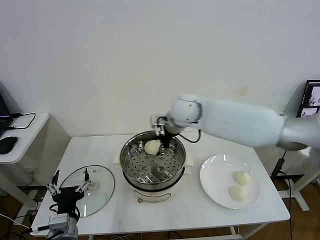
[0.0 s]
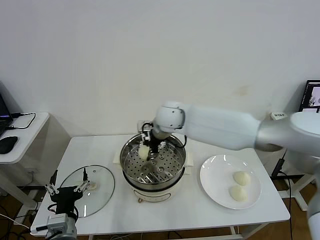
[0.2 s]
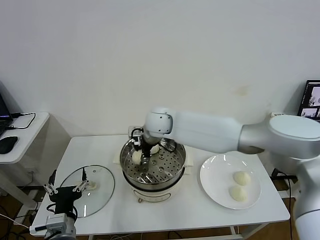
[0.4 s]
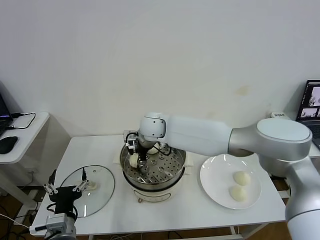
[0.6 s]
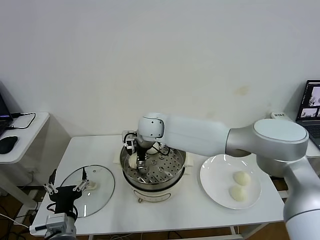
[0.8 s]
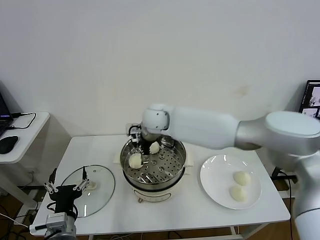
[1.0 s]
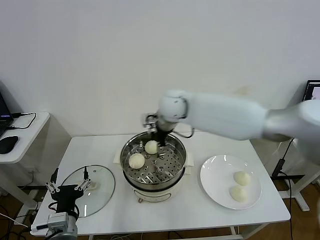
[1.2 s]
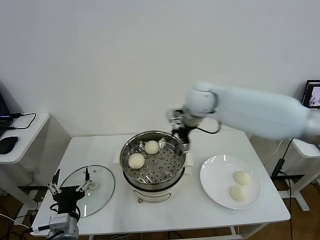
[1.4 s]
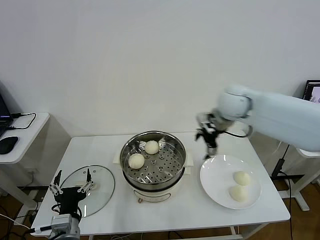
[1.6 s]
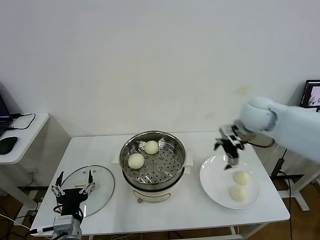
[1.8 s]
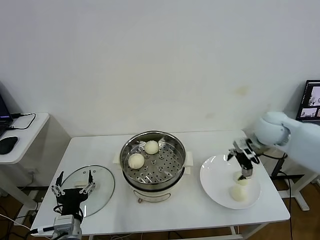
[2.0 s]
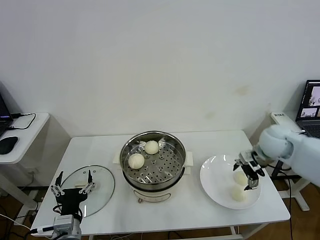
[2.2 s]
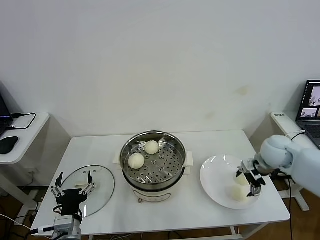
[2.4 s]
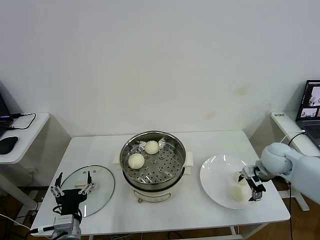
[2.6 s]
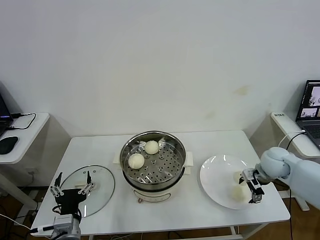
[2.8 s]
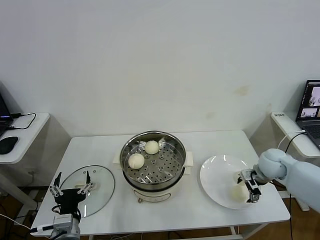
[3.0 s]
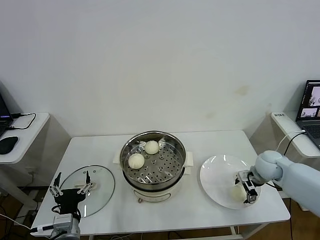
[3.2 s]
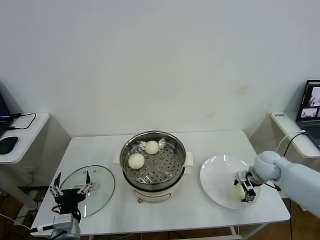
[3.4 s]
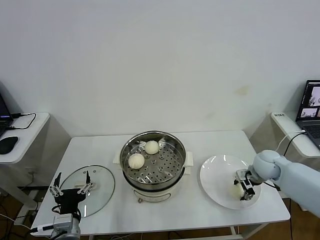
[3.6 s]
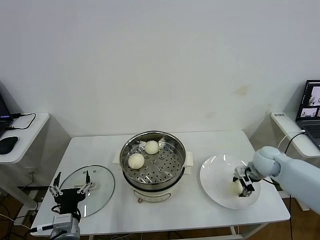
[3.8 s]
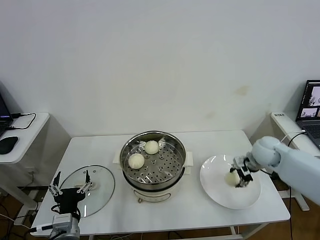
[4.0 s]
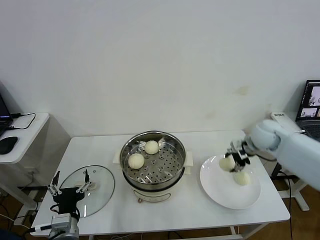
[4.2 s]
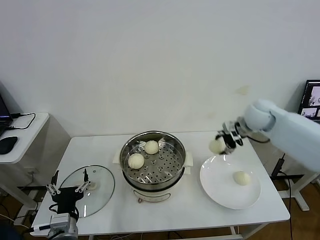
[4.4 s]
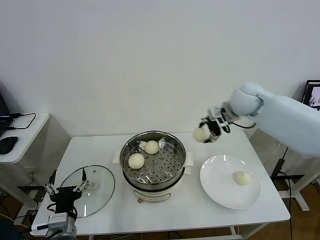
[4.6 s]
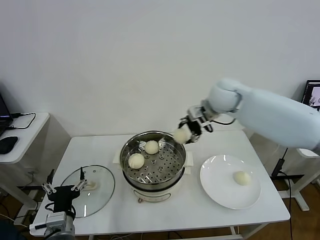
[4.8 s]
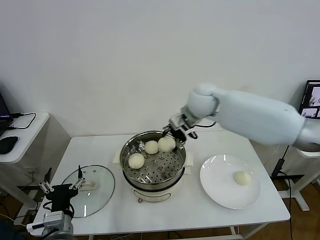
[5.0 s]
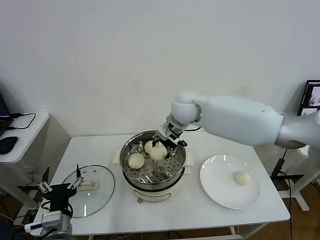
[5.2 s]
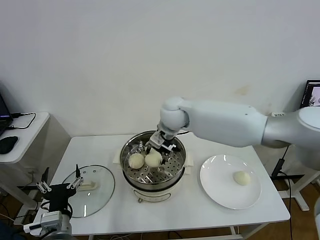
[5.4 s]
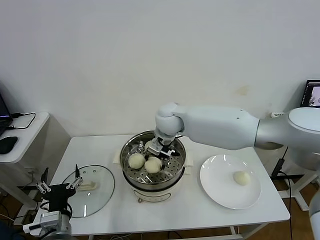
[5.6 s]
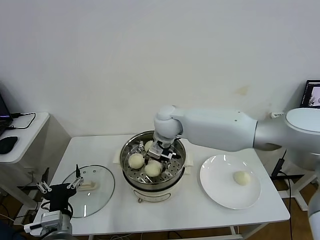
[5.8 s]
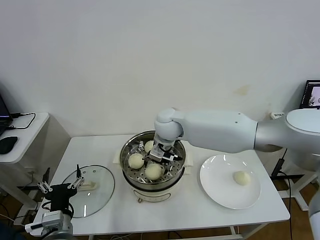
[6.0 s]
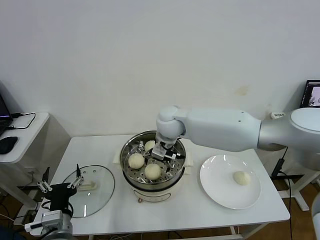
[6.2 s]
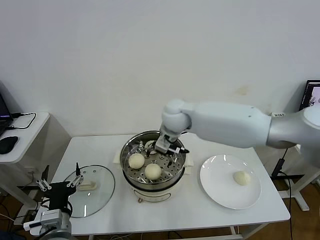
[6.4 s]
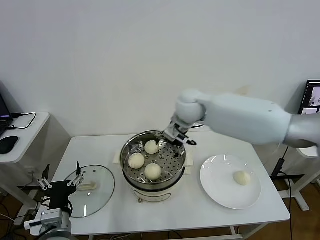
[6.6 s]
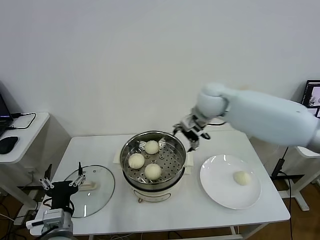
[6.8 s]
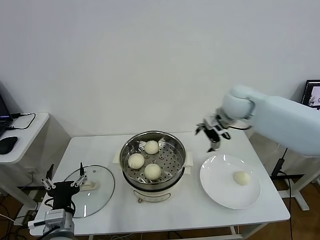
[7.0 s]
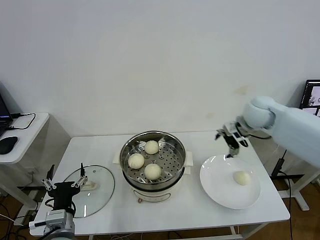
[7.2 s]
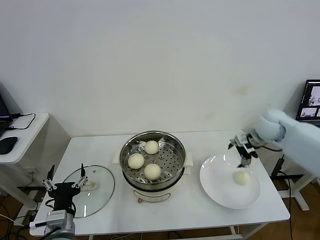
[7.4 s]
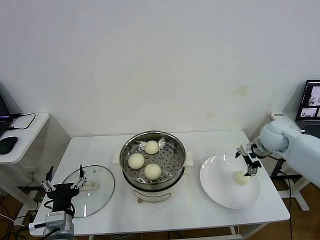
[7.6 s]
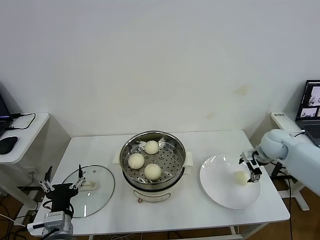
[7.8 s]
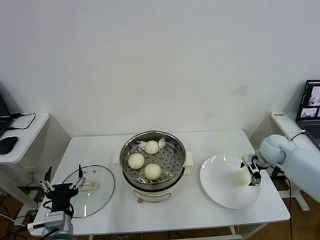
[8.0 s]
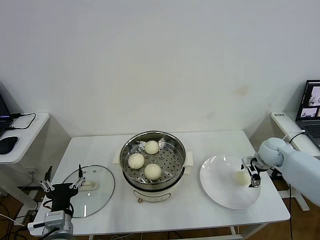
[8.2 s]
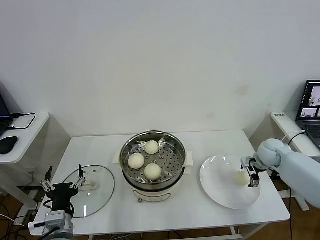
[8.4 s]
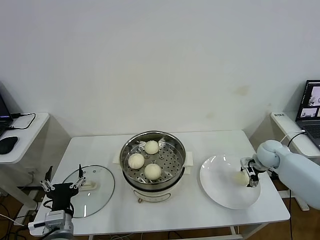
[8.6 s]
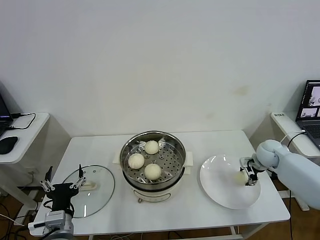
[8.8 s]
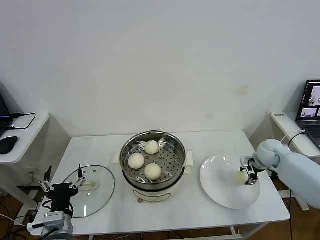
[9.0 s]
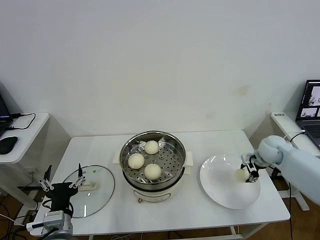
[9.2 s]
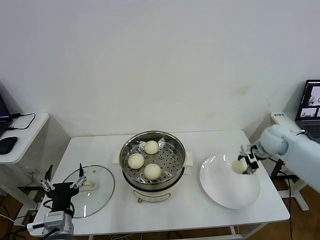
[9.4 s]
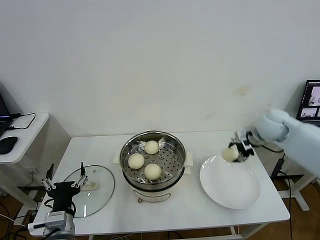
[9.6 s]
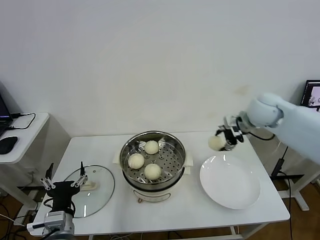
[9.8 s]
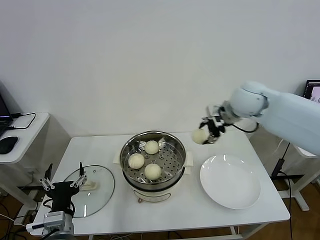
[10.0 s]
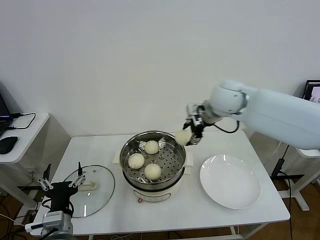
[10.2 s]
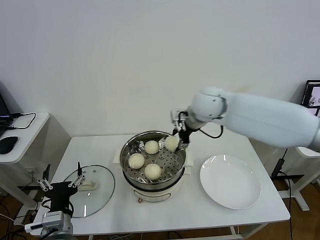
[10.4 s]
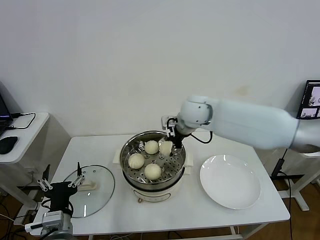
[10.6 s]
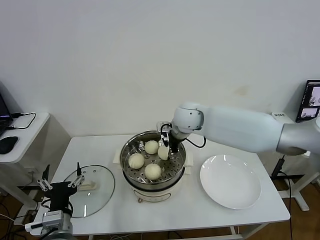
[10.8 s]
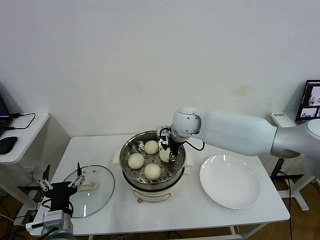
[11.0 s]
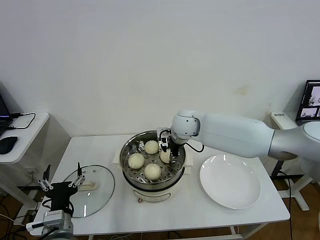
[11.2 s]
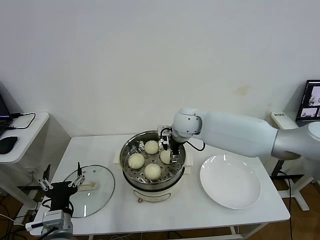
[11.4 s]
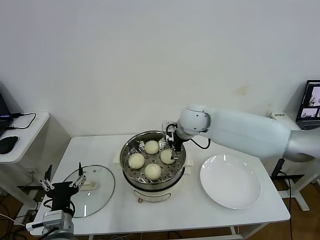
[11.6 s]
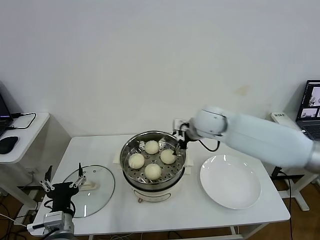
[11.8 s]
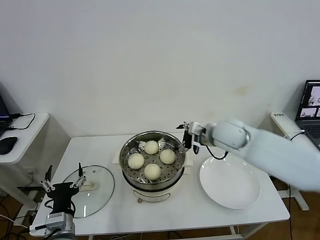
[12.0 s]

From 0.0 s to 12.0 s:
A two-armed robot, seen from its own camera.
Step, from 1.0 s to 3.4 s: Grasp the baozi in the plate with right gripper.
Step, from 3.6 s to 6.0 s: Place the baozi on the steamer with right gripper.
Step, from 6.2 s to 8.8 s: Grasp the baozi in the plate with right gripper.
Step, from 9.0 s to 11.4 s: Place the baozi on the steamer with right gripper.
From 0.0 s to 1.6 s: The right gripper moves to the right, roughly 20 cm, and opens its fingers.
From 1.6 s to 3.0 s: The right gripper moves downward and to the right, some 25 cm.
From 3.0 s to 4.4 s: The right gripper shifts approximately 20 cm upward, forward and to the left, and closes.
From 4.4 s to 6.0 s: The right gripper heads to the left, covering roughly 25 cm, and opens its fingers.
From 6.0 s to 7.6 s: The right gripper heads to the right, covering about 35 cm.
From 7.6 s to 9.0 s: The right gripper travels downward by roughly 10 cm, and closes up.
From 9.0 s to 10.4 s: The right gripper goes about 35 cm to the left and upward.
From 10.4 s to 12.0 s: The right gripper moves downward, to the right and backward, approximately 10 cm, and opens up.

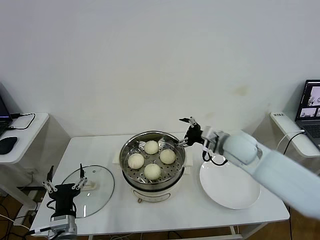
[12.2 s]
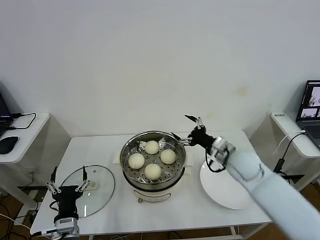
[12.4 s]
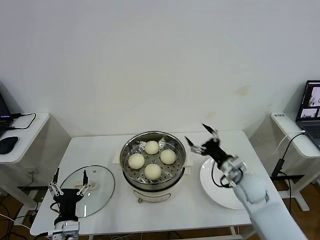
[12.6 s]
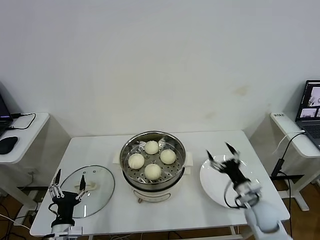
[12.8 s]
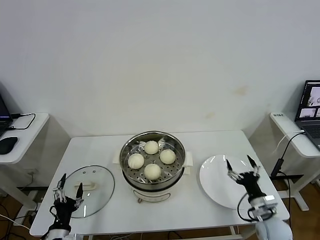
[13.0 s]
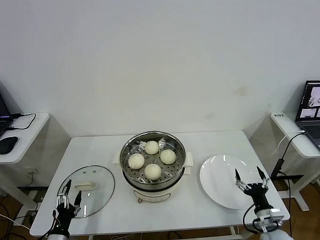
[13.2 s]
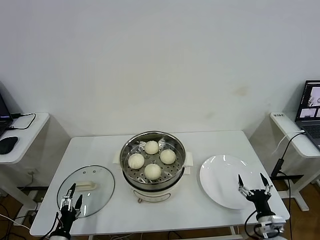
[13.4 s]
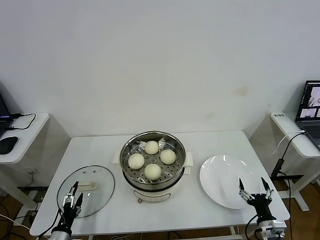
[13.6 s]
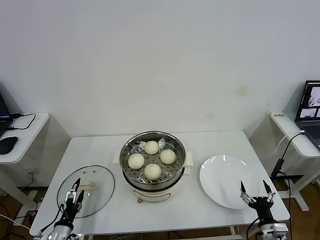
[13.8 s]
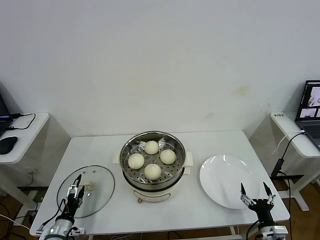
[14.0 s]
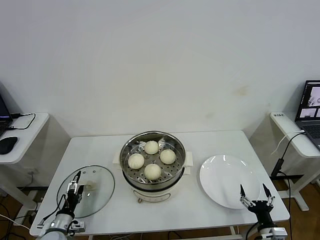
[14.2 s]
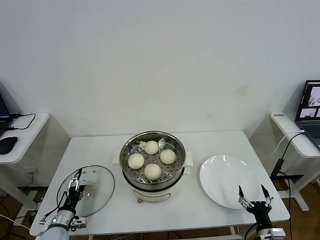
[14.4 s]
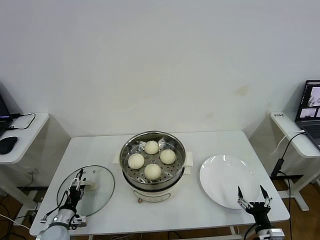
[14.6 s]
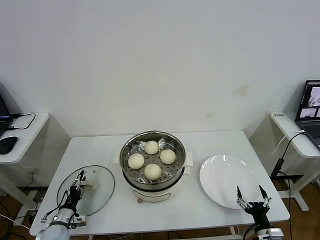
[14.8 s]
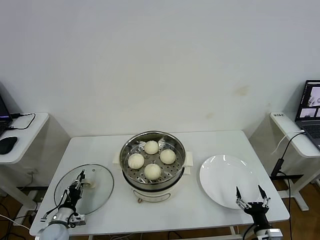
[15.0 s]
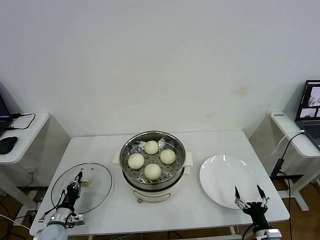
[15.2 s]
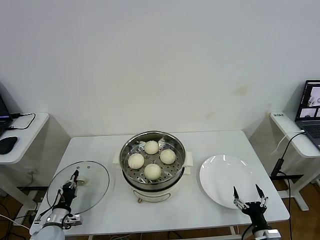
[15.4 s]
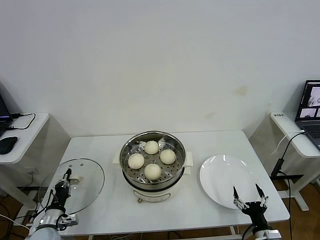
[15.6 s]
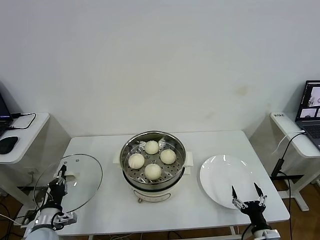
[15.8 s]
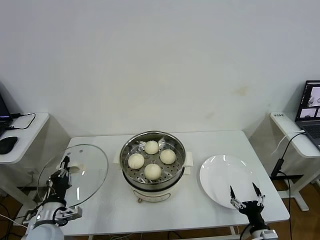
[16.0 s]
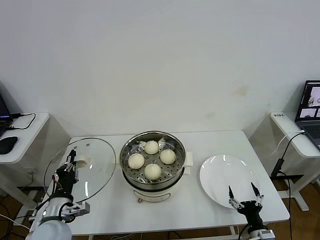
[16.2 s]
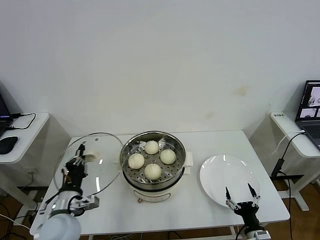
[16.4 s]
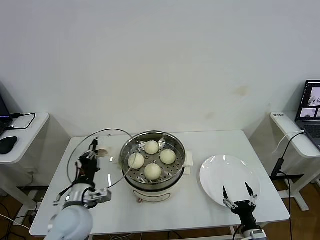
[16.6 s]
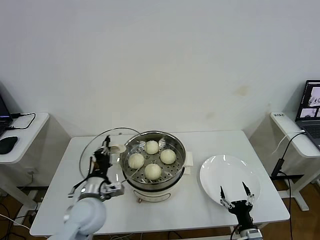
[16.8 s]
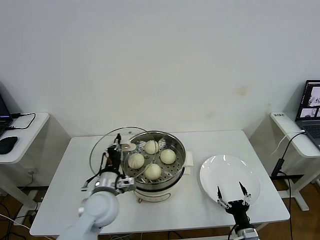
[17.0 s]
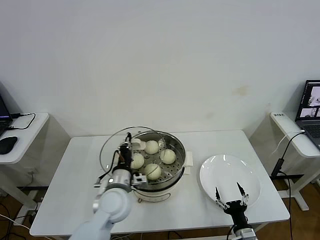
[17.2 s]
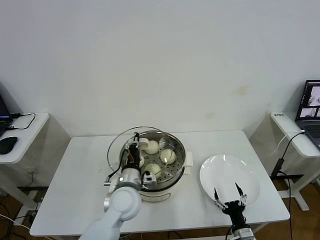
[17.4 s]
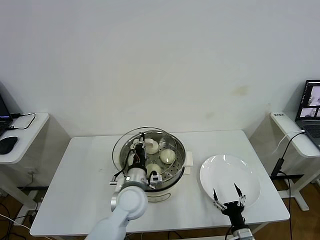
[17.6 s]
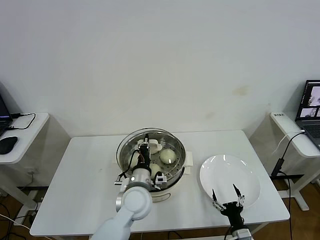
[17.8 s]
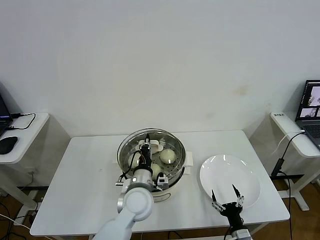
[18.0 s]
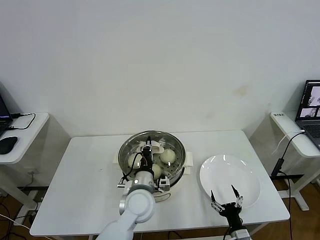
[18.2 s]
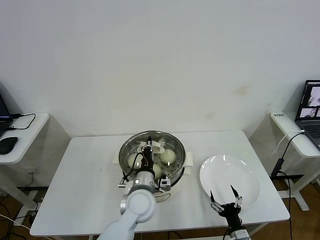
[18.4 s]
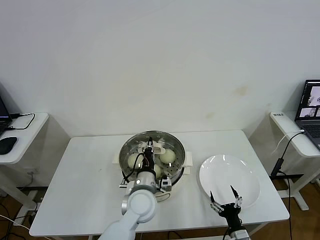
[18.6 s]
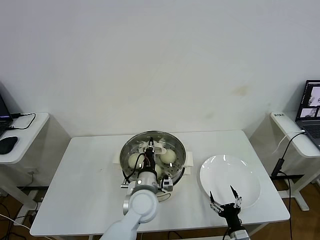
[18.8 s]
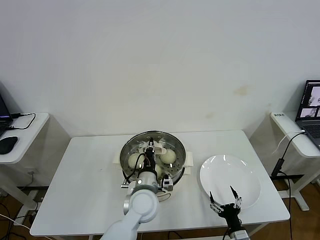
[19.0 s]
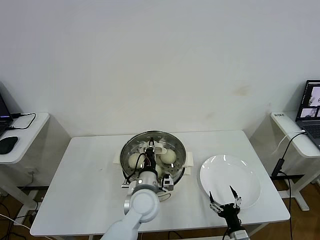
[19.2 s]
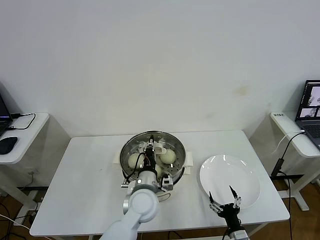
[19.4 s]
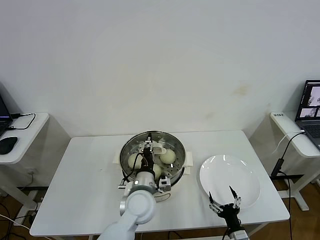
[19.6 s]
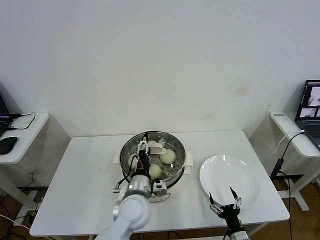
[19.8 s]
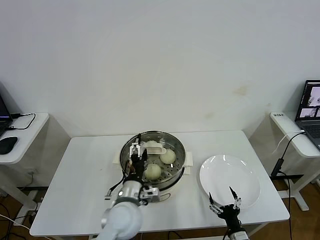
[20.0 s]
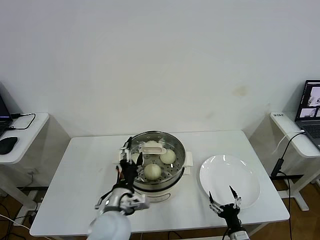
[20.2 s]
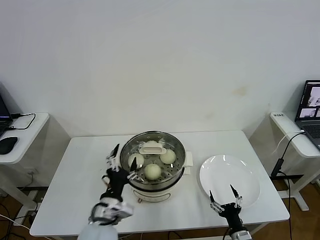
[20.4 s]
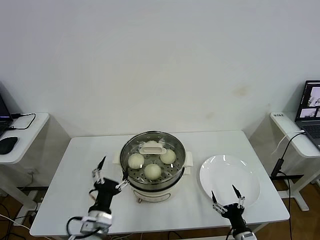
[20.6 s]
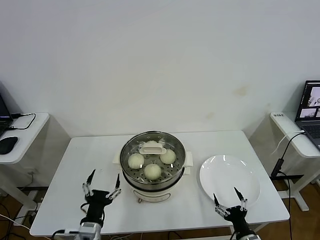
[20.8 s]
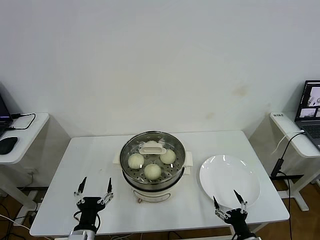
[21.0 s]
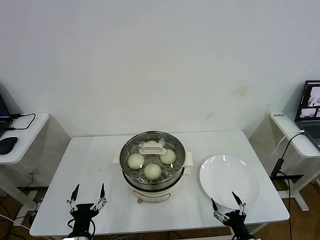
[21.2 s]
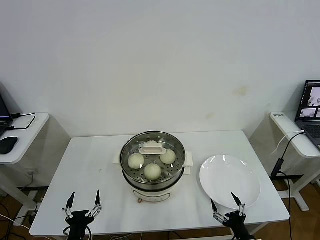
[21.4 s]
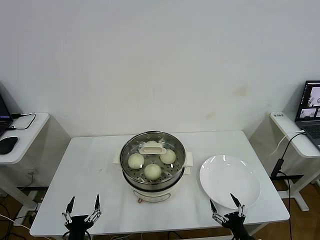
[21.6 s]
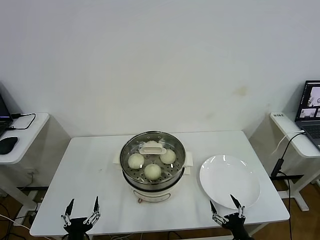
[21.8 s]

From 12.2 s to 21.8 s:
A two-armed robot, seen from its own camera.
Step, from 12.2 s to 15.2 s: Grasp the pot lid with left gripper.
Step, from 15.4 s to 19.4 s: Place the pot lid on the steamer with left gripper.
From 12.2 s to 13.8 s: The left gripper travels downward and to the left by about 15 cm. Meanwhile the right gripper goes some 40 cm downward, backward and to the right.
From 13.8 s to 15.4 s: The left gripper goes about 5 cm forward, and closes its fingers.
From 15.4 s to 17.0 s: The right gripper heads to the left, covering approximately 5 cm; the left gripper is displaced to the right and upward by roughly 30 cm.
From 17.0 s to 18.6 s: The left gripper heads to the right, covering roughly 10 cm.
From 18.6 s to 20.2 s: The left gripper heads backward and to the left, covering some 10 cm, and opens.
From 20.2 s to 21.8 s: The right gripper ends up approximately 5 cm from where it was. Meanwhile the left gripper goes approximately 25 cm to the left, backward and downward.
